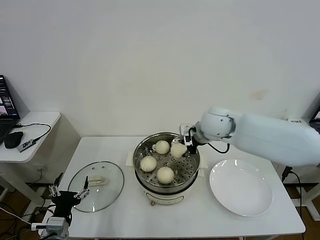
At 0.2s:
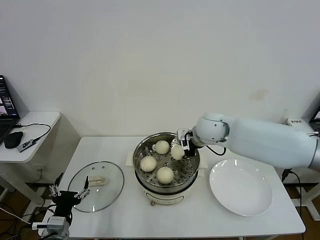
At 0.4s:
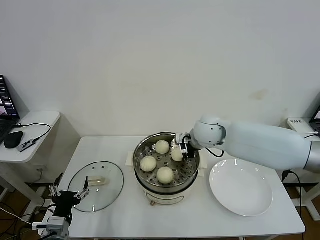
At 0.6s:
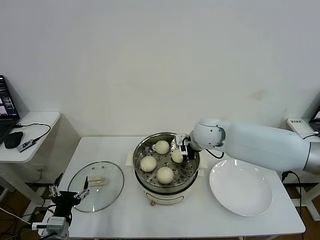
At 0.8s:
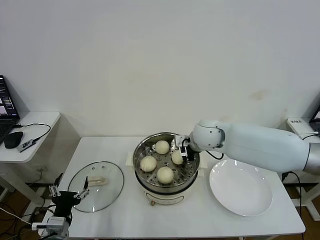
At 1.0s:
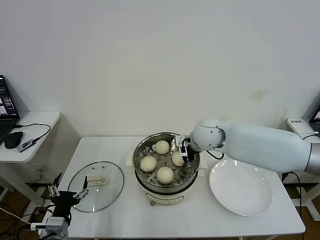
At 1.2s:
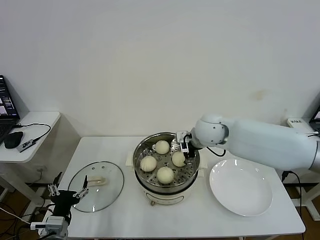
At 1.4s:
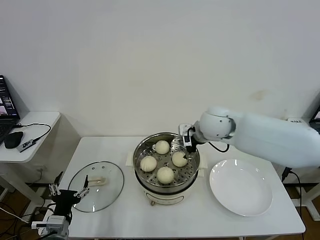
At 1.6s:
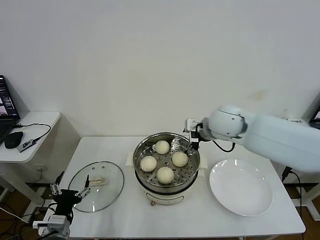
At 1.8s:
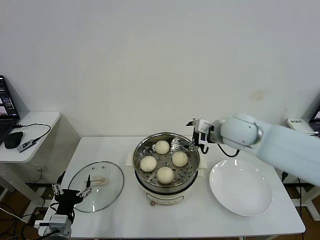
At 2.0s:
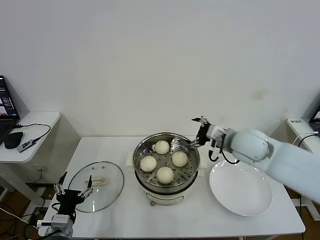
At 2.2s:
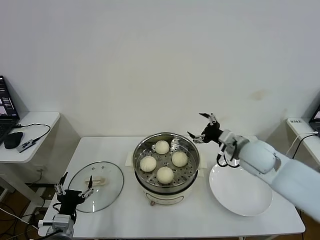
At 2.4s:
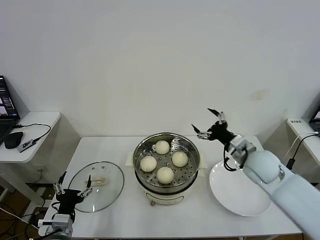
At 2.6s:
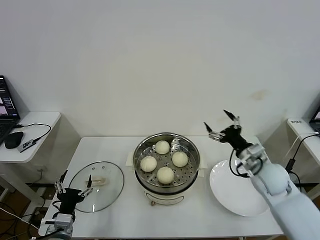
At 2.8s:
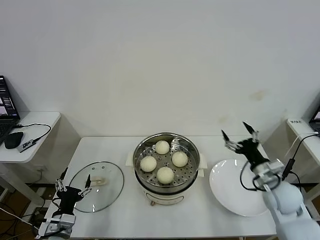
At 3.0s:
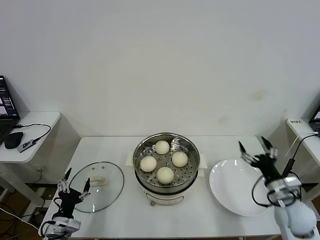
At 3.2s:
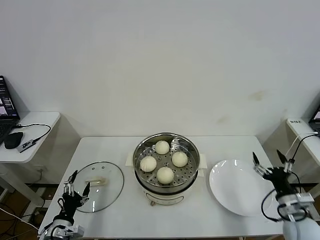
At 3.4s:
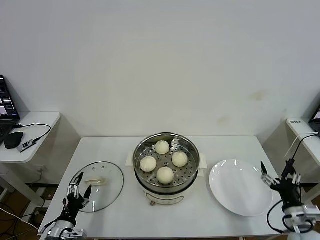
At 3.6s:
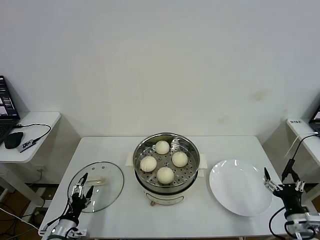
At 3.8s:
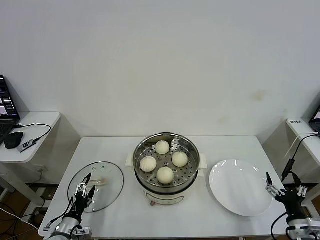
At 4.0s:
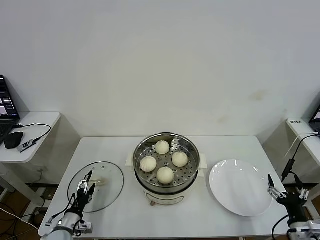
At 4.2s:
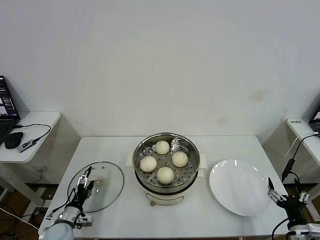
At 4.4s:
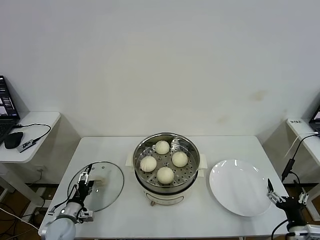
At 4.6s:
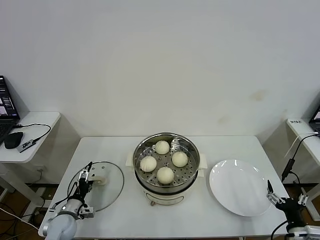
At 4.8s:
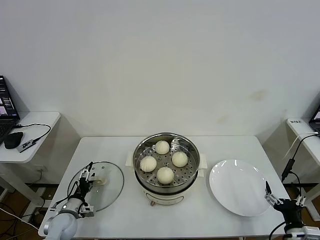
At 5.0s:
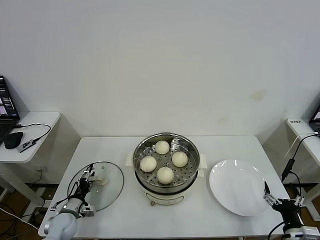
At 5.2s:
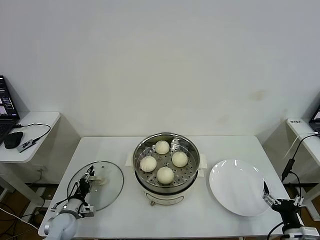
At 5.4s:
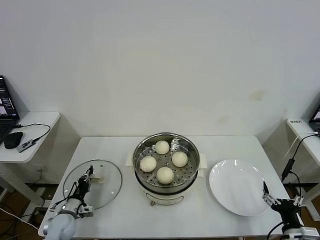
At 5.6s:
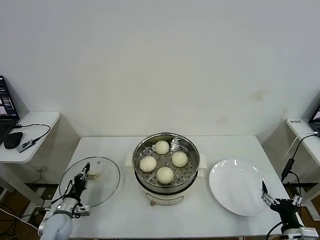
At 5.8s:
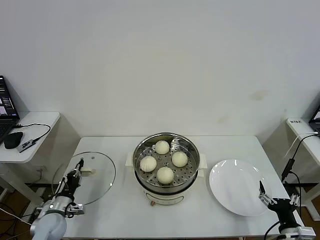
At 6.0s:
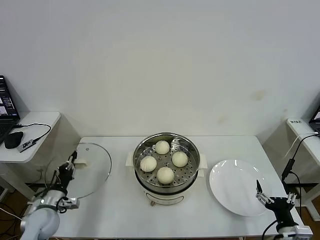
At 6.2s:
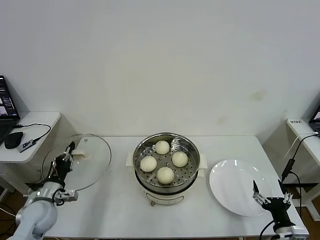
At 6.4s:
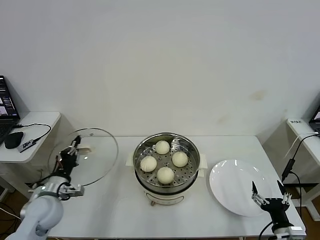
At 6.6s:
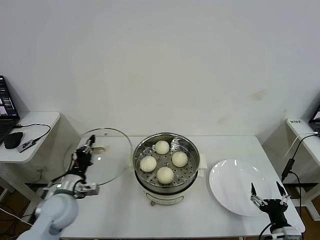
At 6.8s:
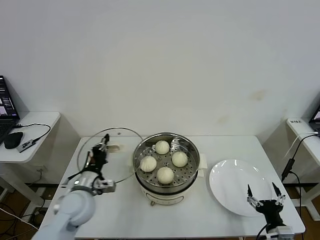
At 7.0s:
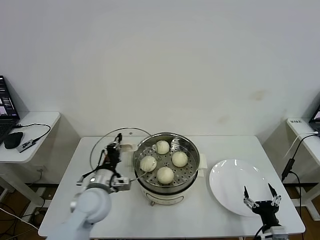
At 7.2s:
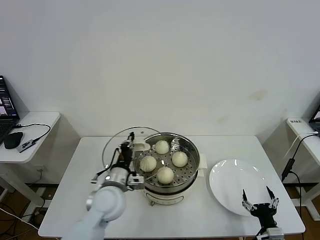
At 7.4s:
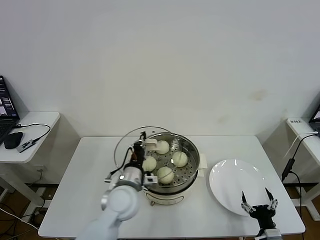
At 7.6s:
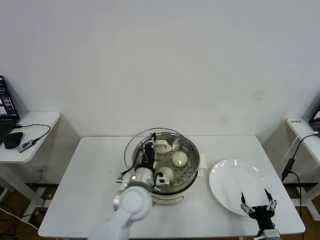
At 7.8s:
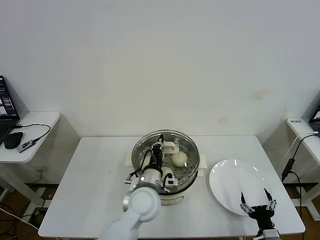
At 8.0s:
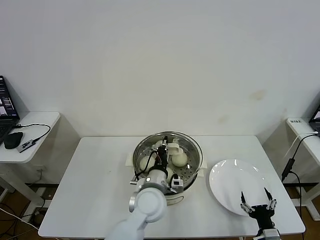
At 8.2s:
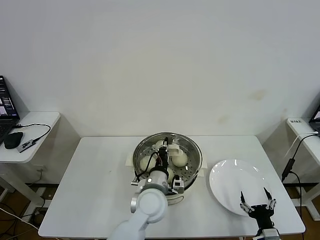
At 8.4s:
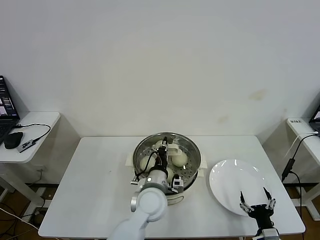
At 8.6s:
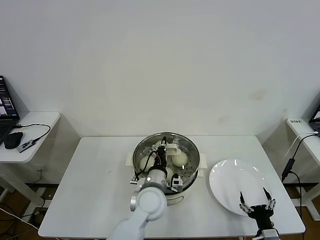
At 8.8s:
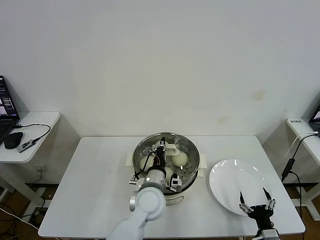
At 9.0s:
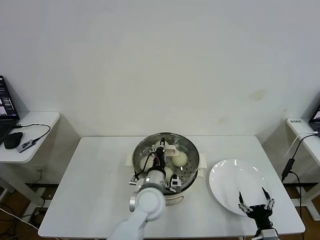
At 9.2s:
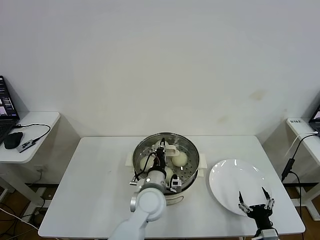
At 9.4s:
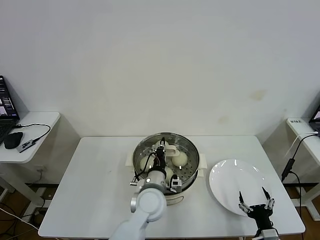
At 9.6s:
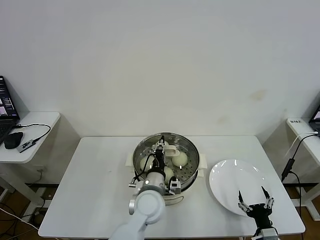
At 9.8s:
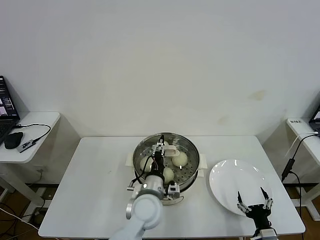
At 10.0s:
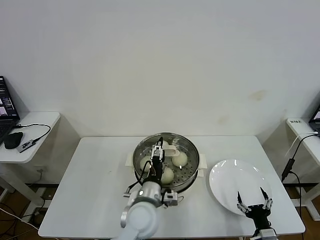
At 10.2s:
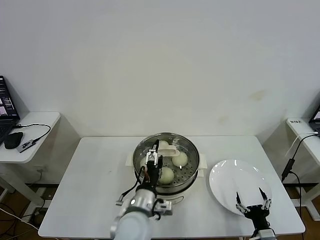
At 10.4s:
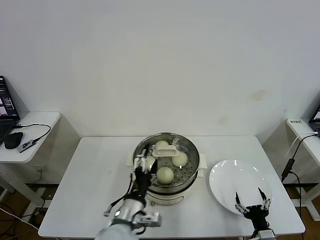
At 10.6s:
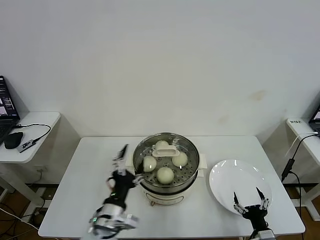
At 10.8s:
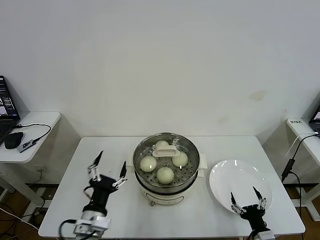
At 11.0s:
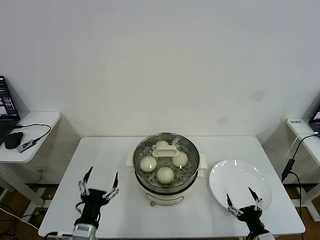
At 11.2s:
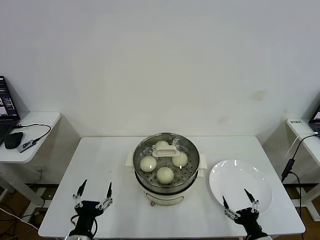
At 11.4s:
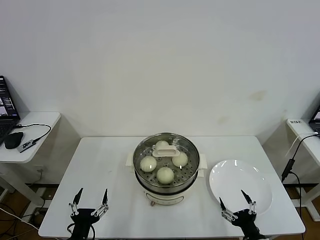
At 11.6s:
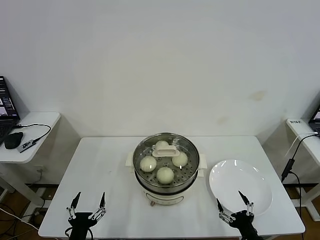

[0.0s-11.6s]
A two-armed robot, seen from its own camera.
Task of the whole recording: take steamed baozi put them in steamer then cover it.
Step, 1.4s to 5.6s: Grasp the pot lid with left gripper.
Step, 5.8s to 9.8s: Place the pot lid on the steamer with left gripper.
0.0s to 1.4s: The right gripper opens its fingers.
1.4s to 2.8s: The right gripper goes about 30 cm to the right, downward and backward.
2.8s to 4.4s: The left gripper goes approximately 10 cm downward and forward; the right gripper travels backward and downward by approximately 20 cm.
4.4s to 5.8s: The left gripper closes its fingers.
5.8s to 7.2s: The right gripper shifts by approximately 5 cm; the left gripper goes roughly 25 cm to the right and upward.
7.2s to 8.8s: The left gripper goes approximately 15 cm to the right.
8.8s to 10.2s: The left gripper shifts roughly 5 cm backward, and opens.
10.2s to 11.6s: The right gripper ends up some 5 cm from where it was; the left gripper heads to the left, backward and downward, covering approximately 25 cm.
